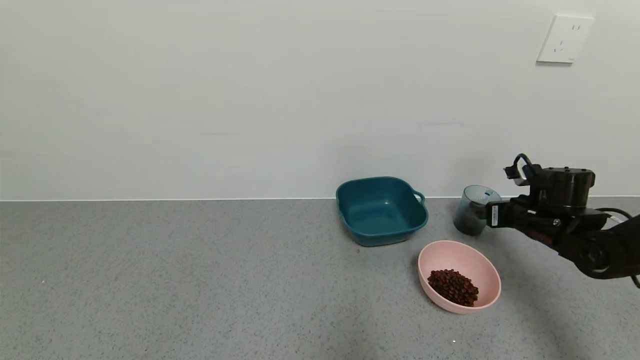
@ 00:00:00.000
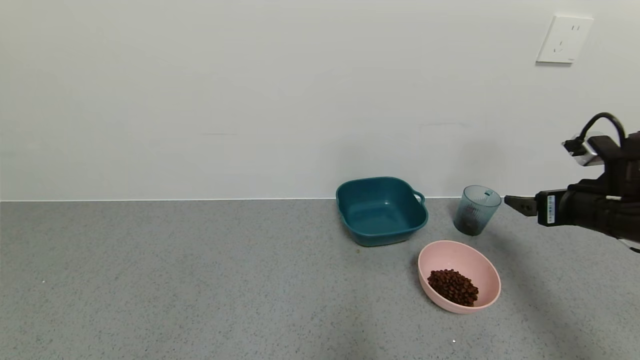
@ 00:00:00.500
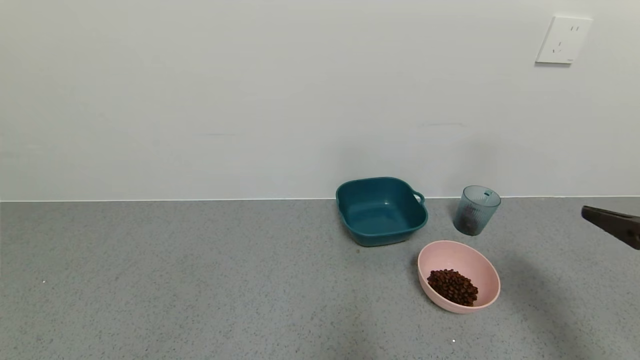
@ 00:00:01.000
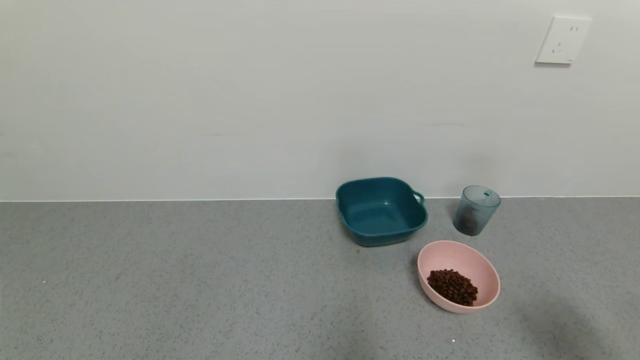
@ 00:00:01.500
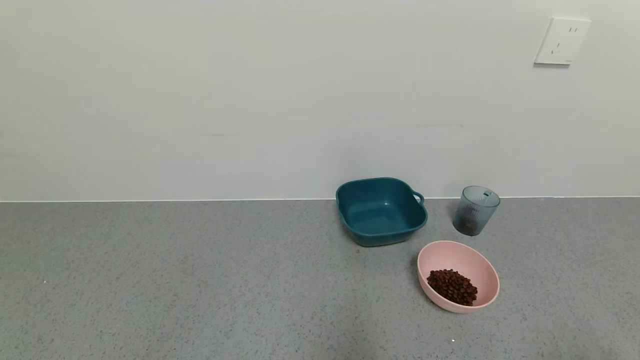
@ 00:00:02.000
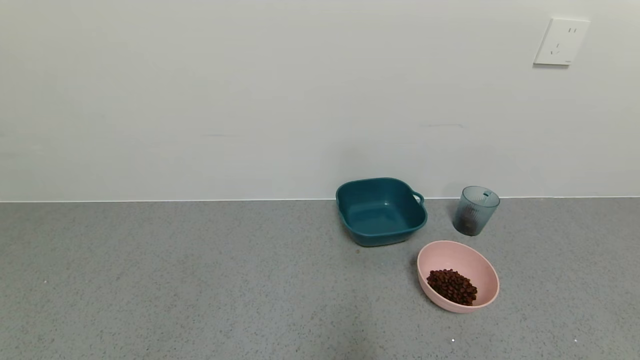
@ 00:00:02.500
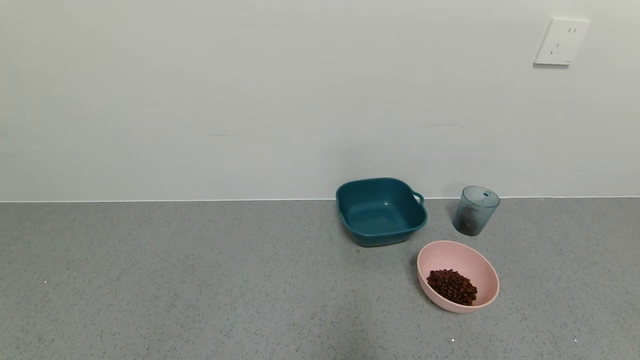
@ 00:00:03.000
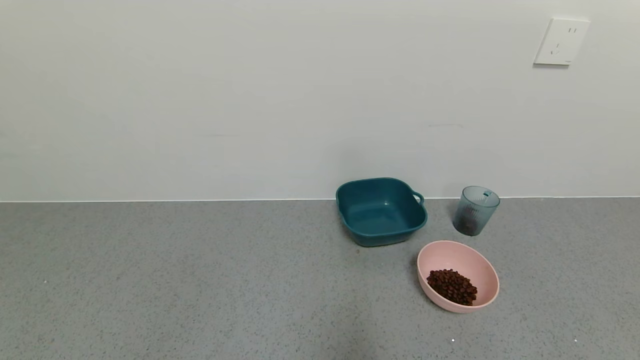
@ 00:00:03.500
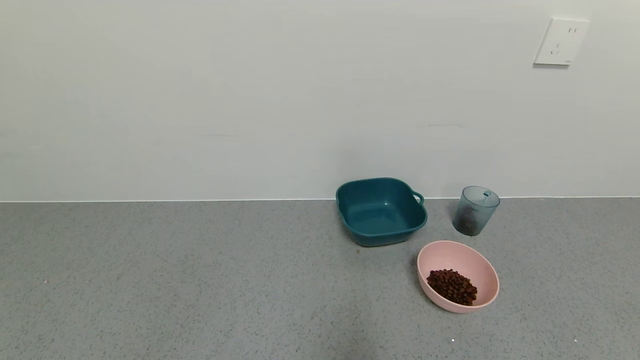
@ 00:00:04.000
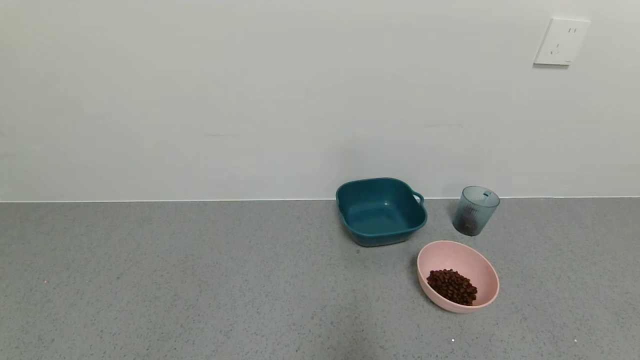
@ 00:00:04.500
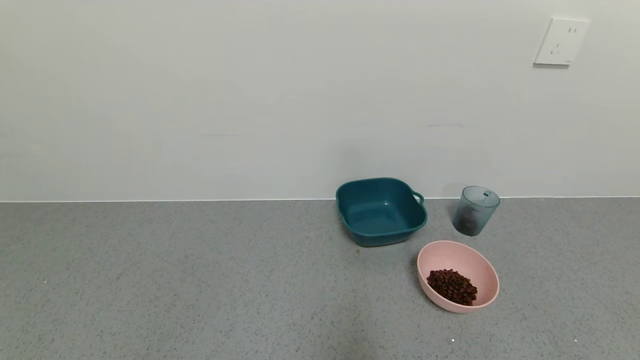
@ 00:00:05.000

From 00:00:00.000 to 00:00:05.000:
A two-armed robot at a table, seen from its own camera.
Task of the whole recording: use a gripper to pick up the cup and pour the solid into a bowl or tray.
From 00:00:00.000 to 00:00:02.500: The right gripper shifts roughly 40 cm backward.
